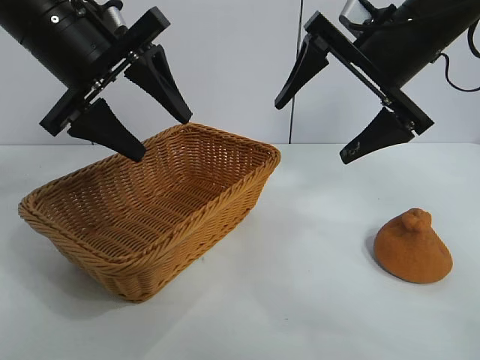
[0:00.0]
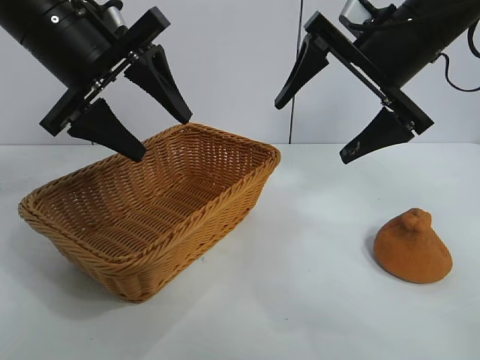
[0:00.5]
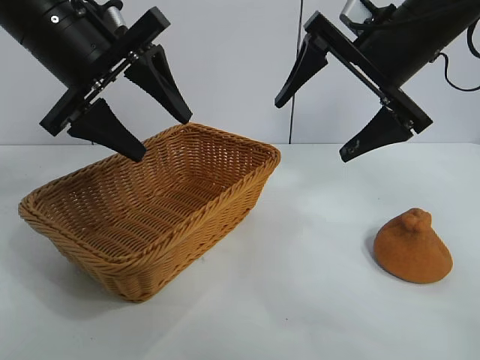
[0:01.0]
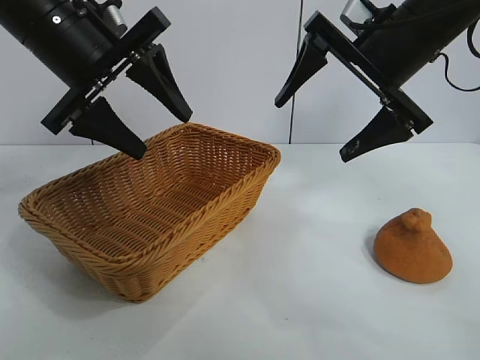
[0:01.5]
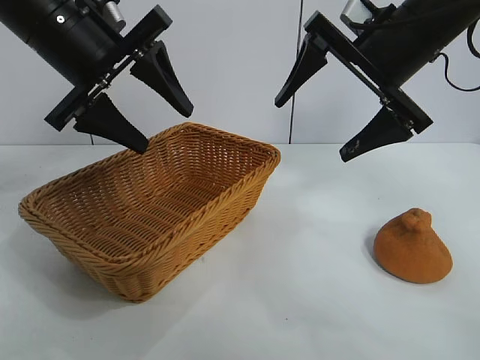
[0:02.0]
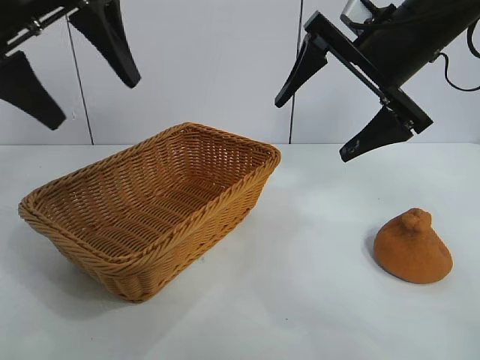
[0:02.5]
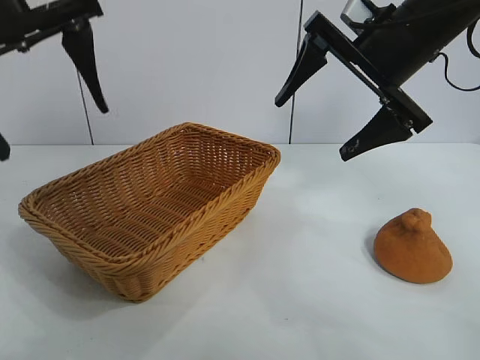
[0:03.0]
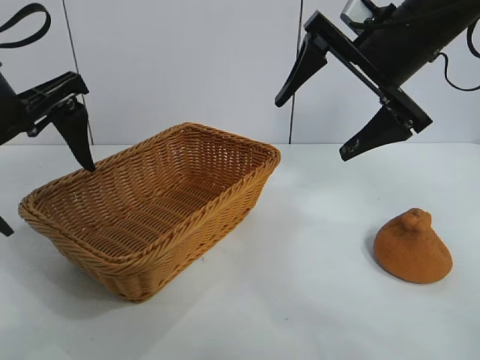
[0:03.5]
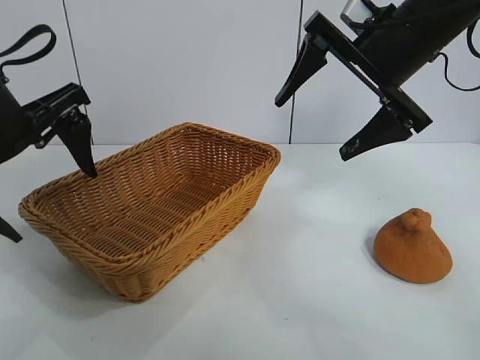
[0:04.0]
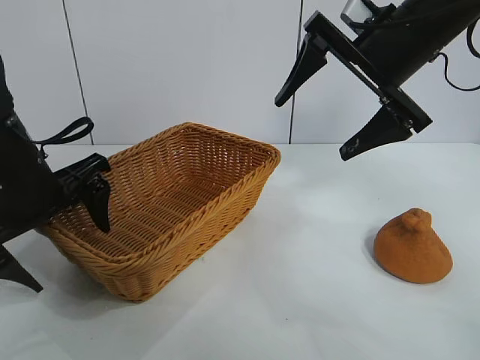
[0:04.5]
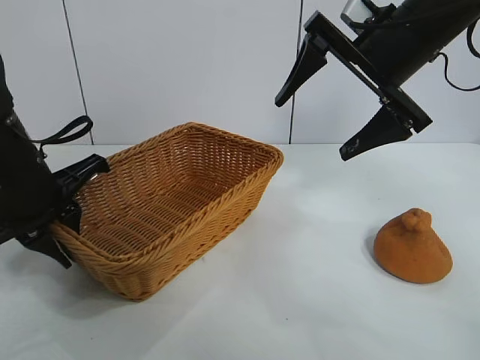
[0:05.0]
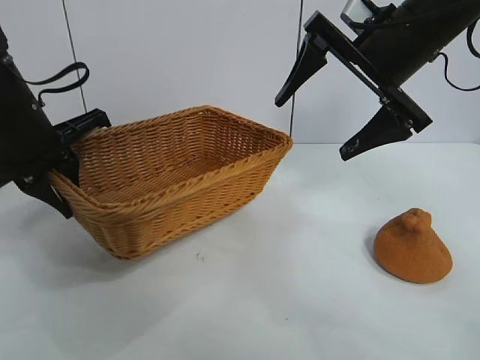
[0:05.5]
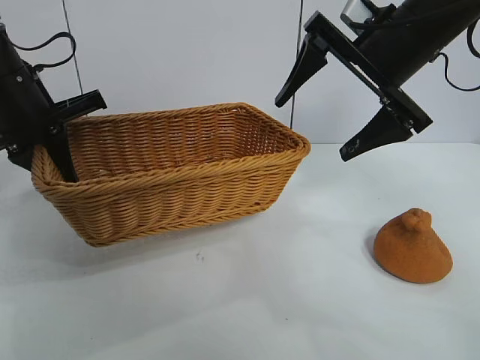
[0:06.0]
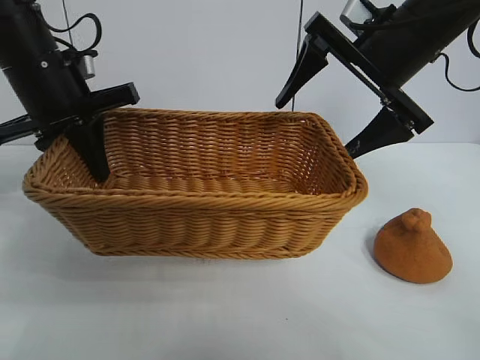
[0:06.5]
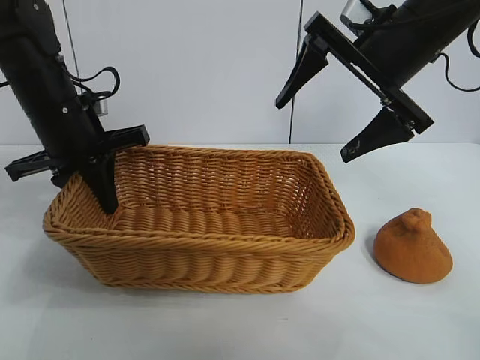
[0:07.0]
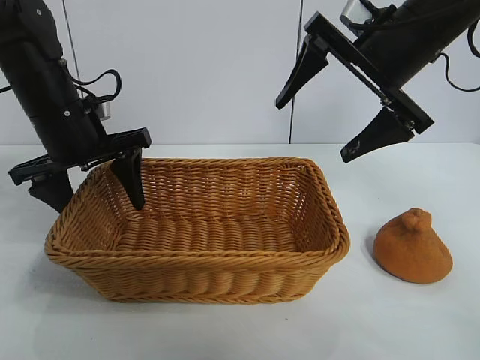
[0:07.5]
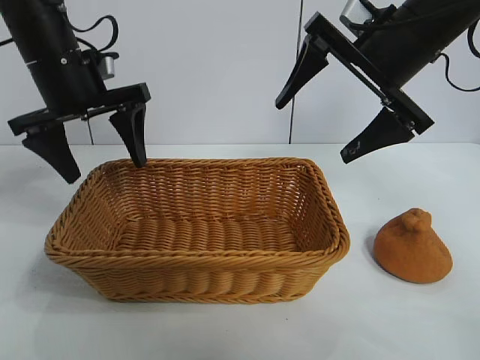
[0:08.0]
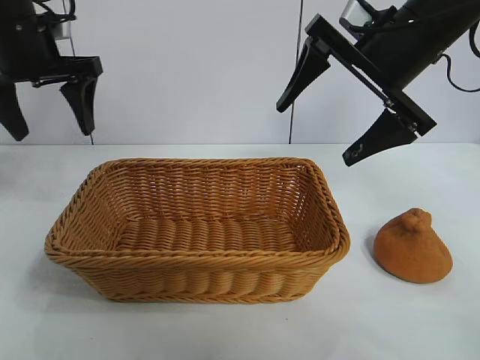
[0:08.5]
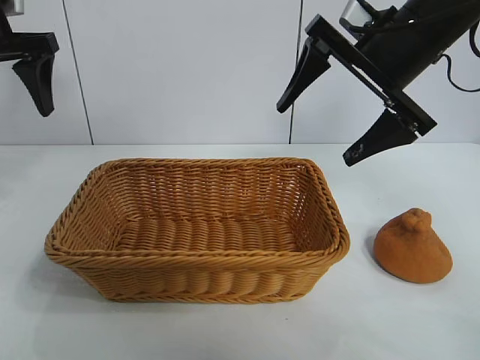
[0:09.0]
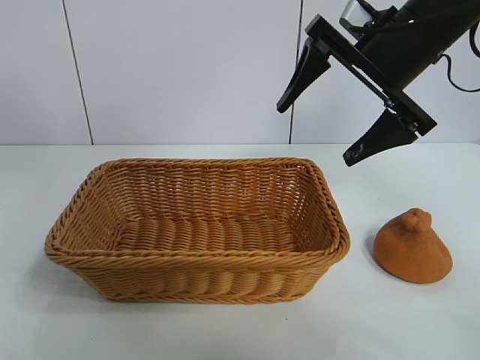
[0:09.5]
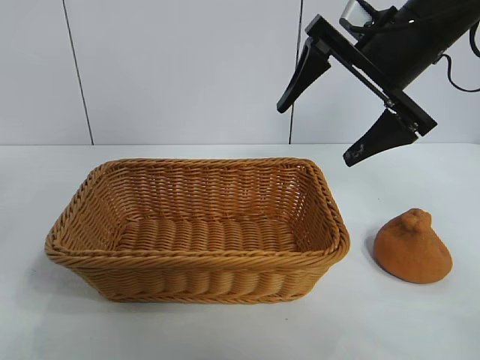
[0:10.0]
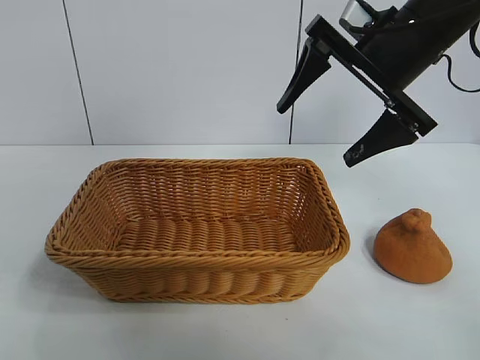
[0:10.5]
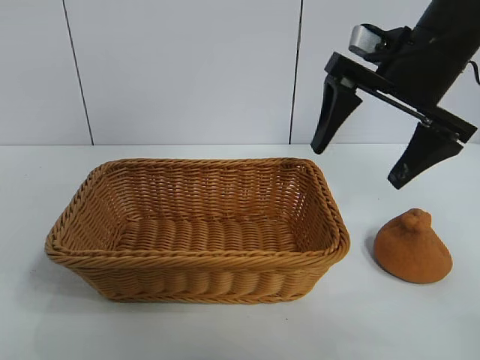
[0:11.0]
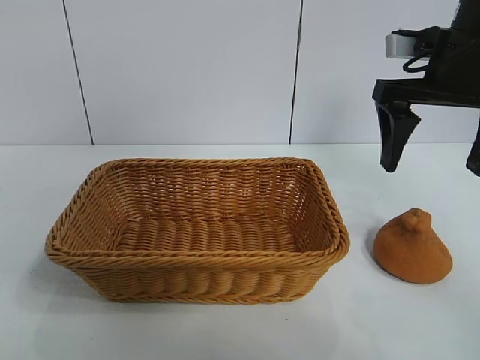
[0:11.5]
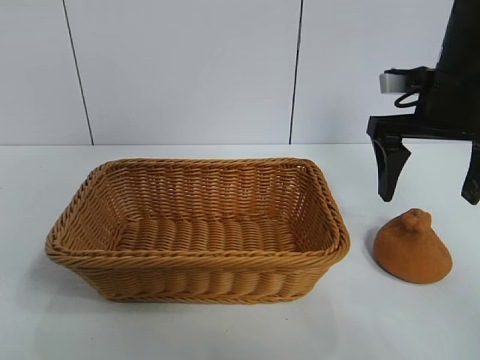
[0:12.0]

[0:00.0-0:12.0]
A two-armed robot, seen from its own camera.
Task of the whole recording: pick up the orange and put it into the basket.
Step, 0:01.5 to 0:05.0: Grasp the basket with left gripper.
Step, 0:05.5 to 0:07.5: Place the basket in the center of view with left gripper.

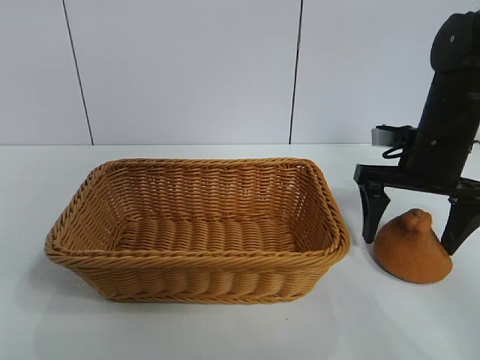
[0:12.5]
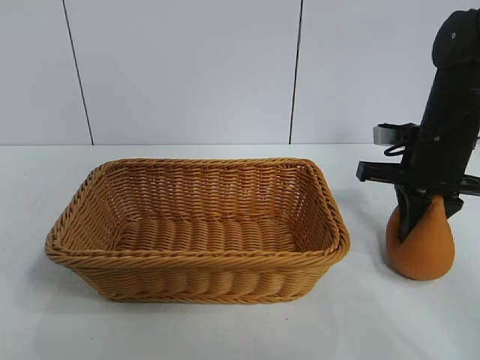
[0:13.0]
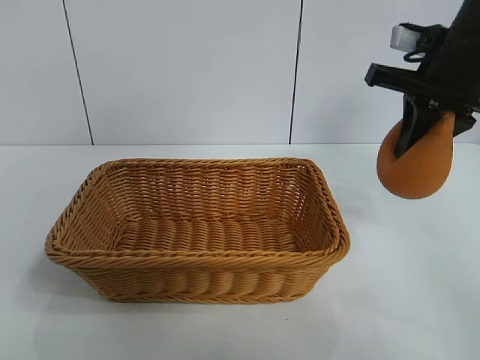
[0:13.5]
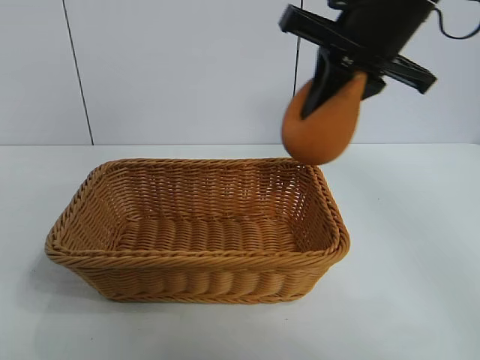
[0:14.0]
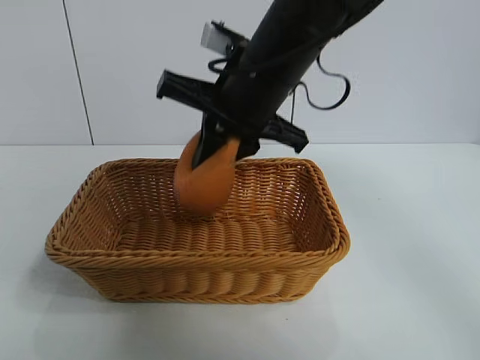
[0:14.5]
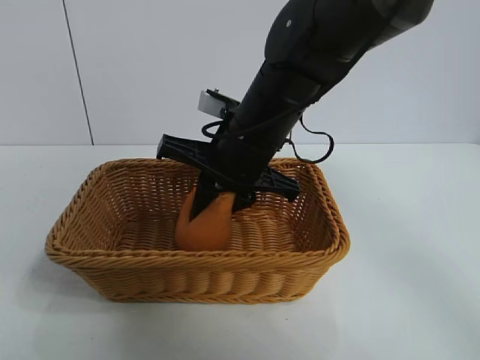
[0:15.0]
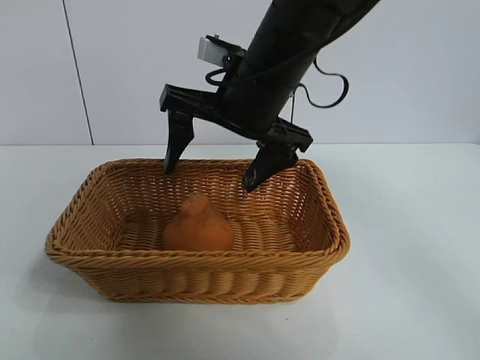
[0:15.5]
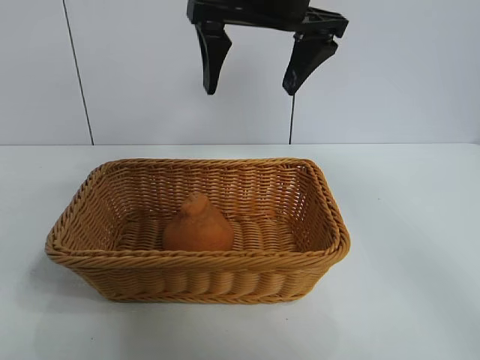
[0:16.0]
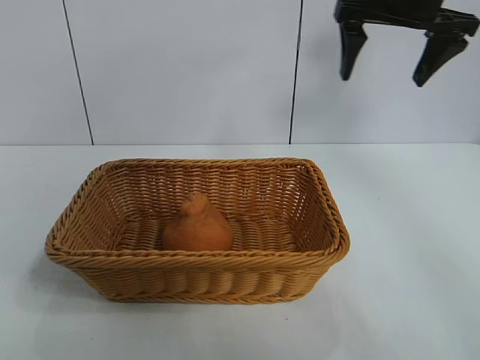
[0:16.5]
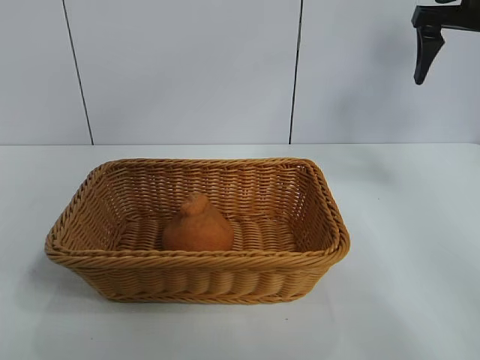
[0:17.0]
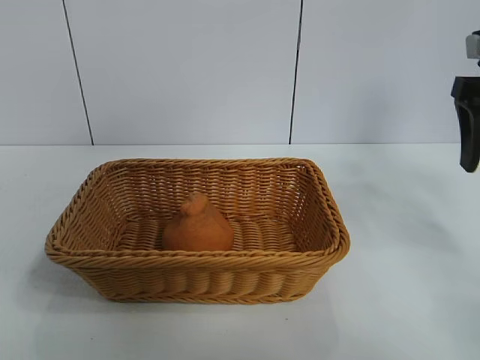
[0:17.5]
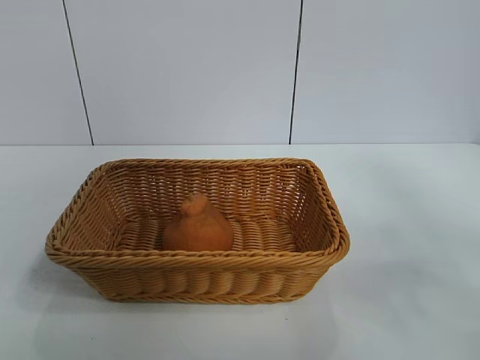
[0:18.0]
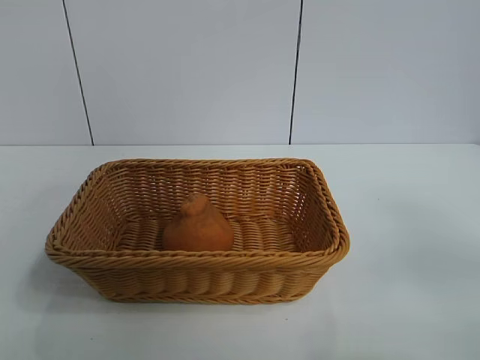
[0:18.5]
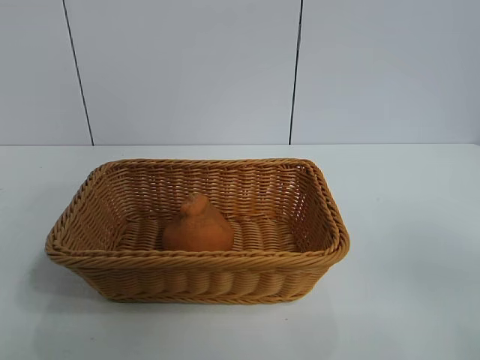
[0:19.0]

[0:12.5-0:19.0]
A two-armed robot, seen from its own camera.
Task of the whole recording: pick up the orange and put it into the basket.
Step, 0:13.5 to 0:15.0: Place the orange in the basket with right gripper.
